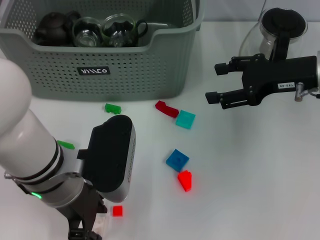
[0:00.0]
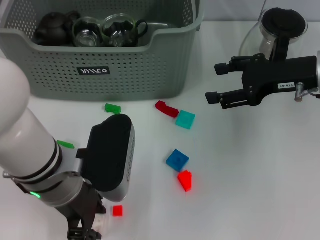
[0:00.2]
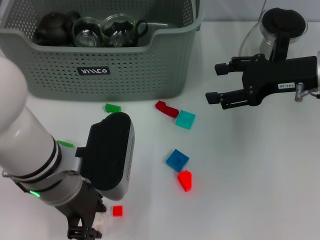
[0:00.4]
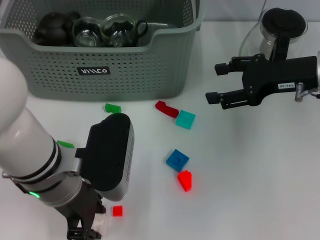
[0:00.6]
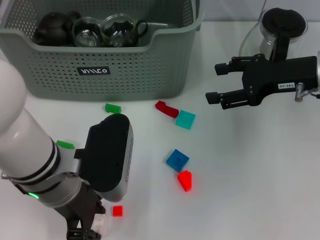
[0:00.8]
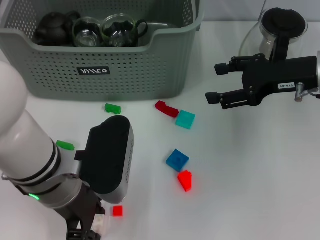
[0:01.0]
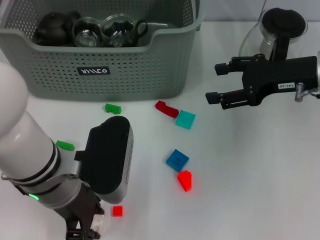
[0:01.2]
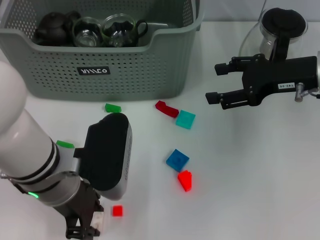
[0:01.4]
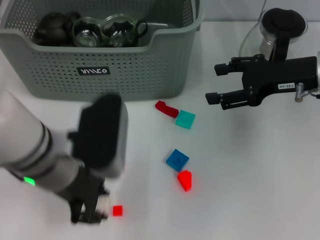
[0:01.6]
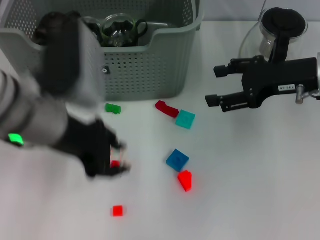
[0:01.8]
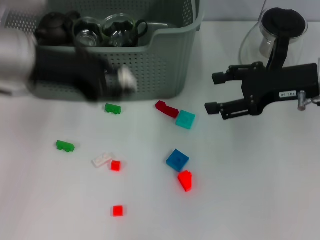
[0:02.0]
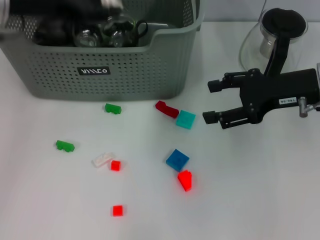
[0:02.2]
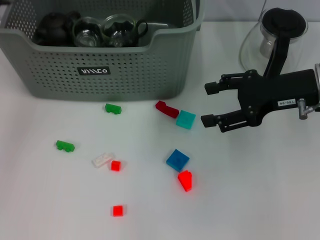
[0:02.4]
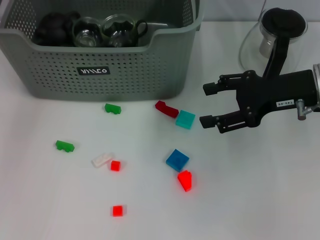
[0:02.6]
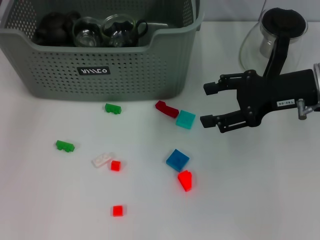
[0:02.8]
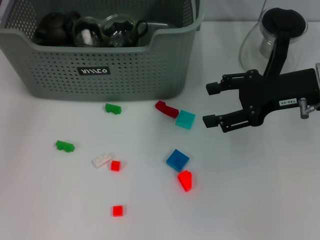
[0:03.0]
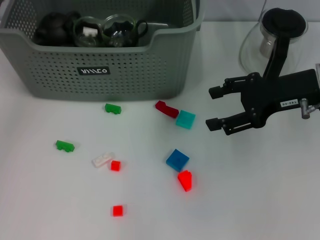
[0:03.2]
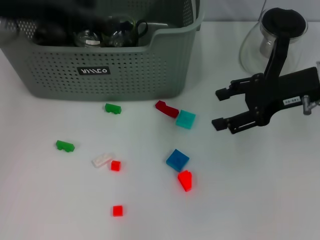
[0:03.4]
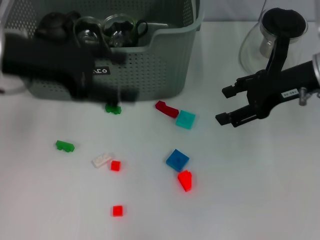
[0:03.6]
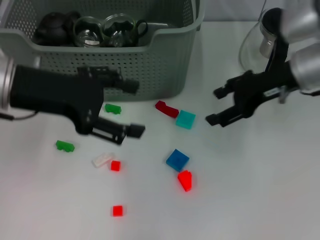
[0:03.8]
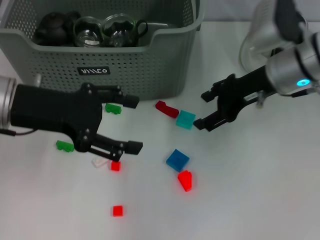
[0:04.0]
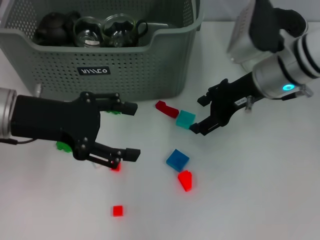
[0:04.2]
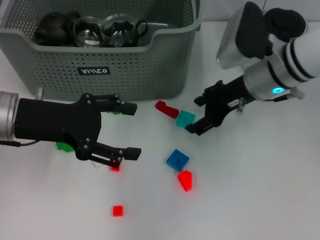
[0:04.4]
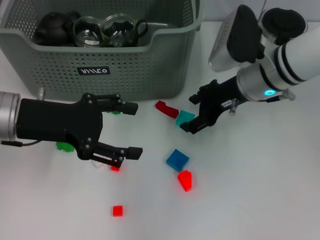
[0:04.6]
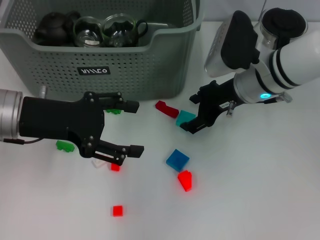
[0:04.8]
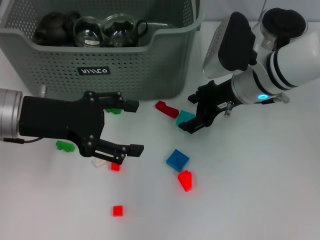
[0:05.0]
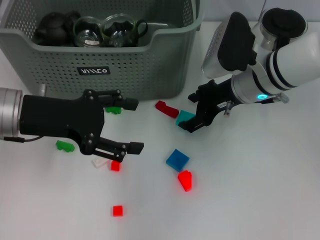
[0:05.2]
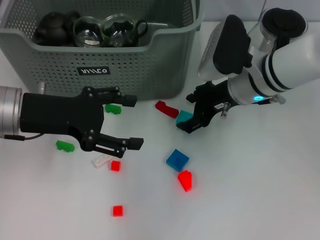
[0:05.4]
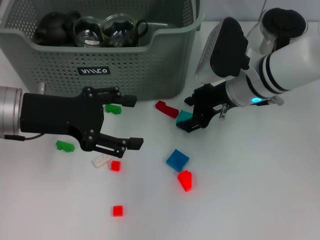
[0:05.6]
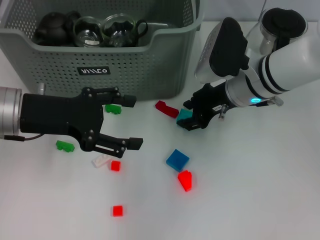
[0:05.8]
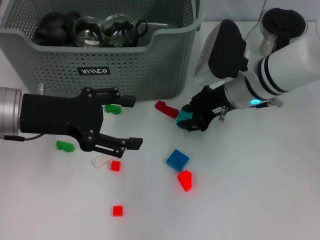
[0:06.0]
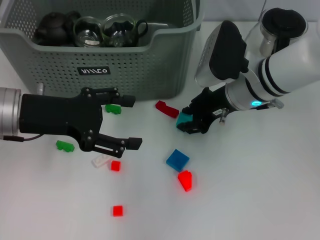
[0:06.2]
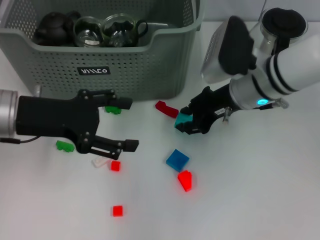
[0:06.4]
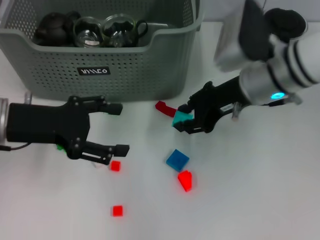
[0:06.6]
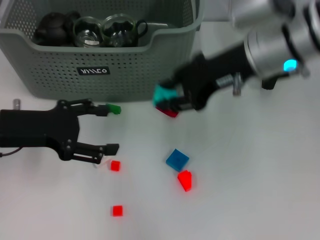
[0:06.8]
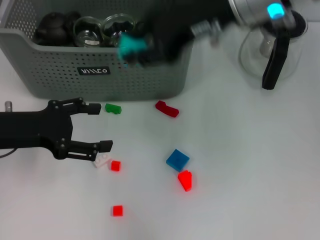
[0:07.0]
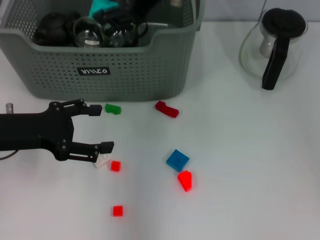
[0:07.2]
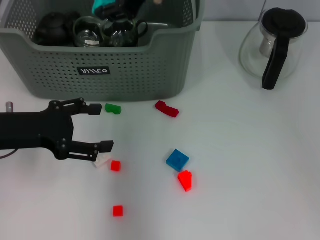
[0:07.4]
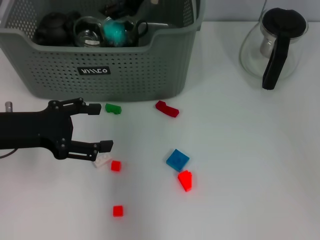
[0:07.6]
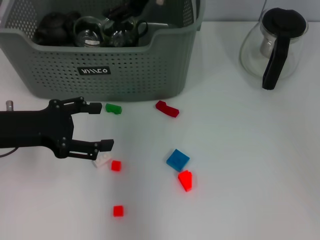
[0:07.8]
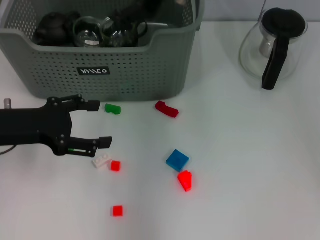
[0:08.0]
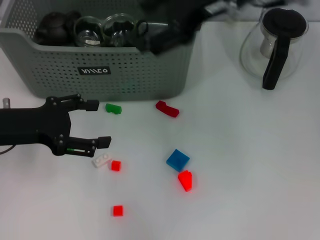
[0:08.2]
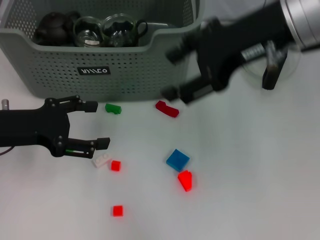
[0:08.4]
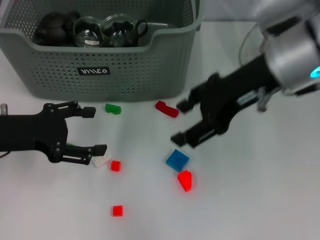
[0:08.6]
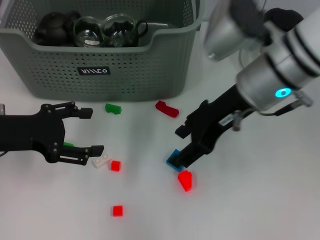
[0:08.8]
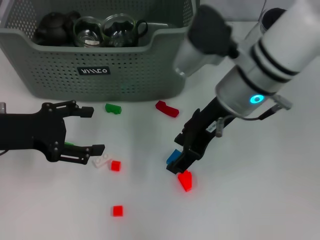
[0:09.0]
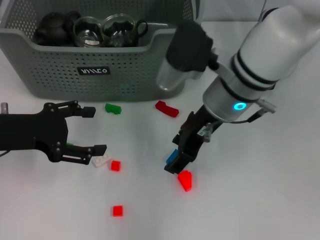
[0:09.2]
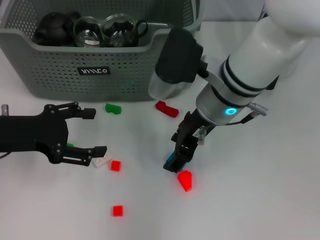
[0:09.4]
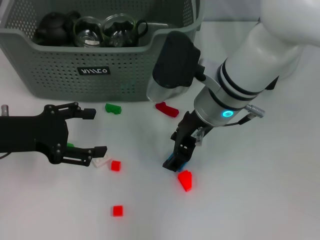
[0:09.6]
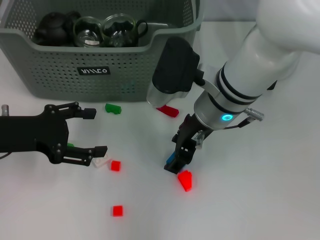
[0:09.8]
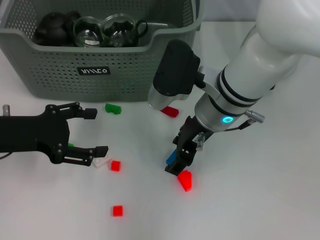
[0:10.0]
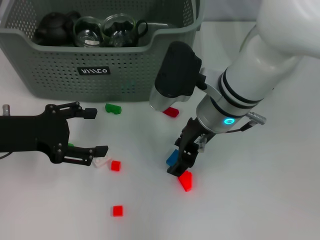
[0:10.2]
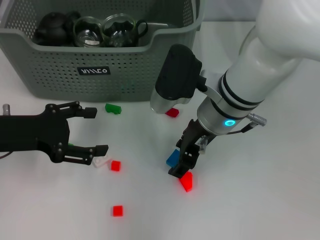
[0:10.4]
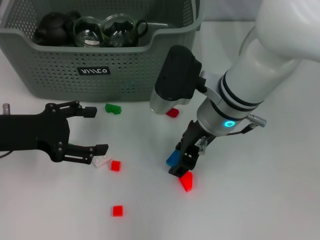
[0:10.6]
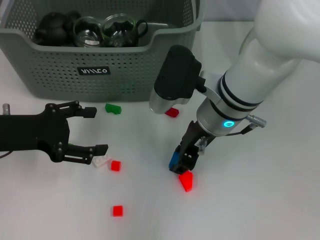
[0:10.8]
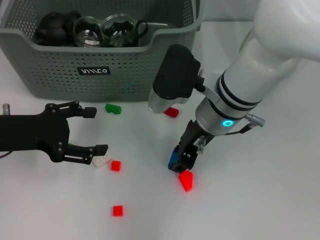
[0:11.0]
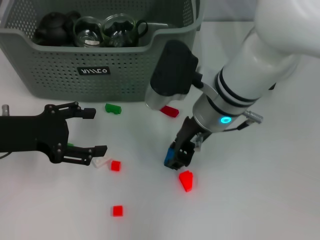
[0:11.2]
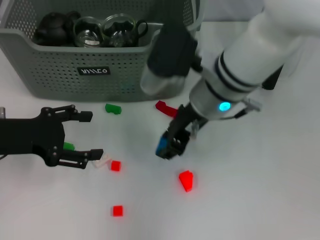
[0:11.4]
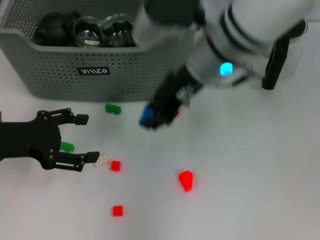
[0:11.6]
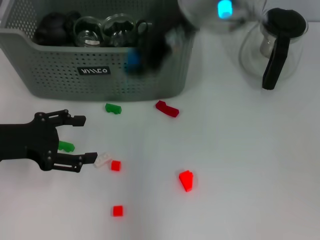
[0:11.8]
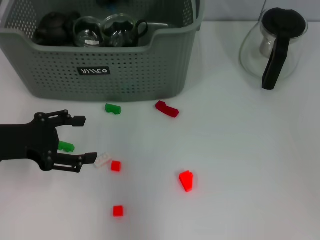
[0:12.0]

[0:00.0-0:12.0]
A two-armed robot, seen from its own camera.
Task of the whole recording: pick up the teacup on the table and place it into the storage bin, pick up the block on the table and place it into the storage bin.
Step, 0:00.6 to 0:06.2: Place the white block in the storage box with left gripper.
Step, 0:06.4 to 0:07.8: Place the light blue block in the storage box with right gripper.
0:00.0 to 0:01.6: The grippers make only small movements.
0:01.6 to 0:03.0: The left gripper shifts some 25 cm forward, to the left and upward.
0:03.0 to 0:04.4: The left gripper heads backward and downward, covering roughly 20 cm, and opens its fingers. Meanwhile the right gripper is displaced to the left by some 10 cm.
0:04.4 to 0:06.0: The grippers move only a little.
0:06.0 to 0:07.6: The right gripper is displaced upward and to the left by approximately 20 cm. Meanwhile the left gripper ends up approximately 5 cm from where it was.
0:07.6 to 0:09.0: The right gripper shifts some 15 cm backward, downward and to the right.
0:09.0 to 0:10.4: The right gripper changes place by some 5 cm.
0:10.4 to 0:12.0: The right gripper moves upward, about 20 cm, and closes.

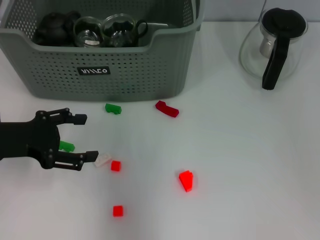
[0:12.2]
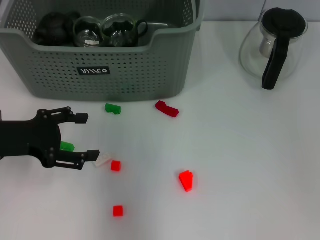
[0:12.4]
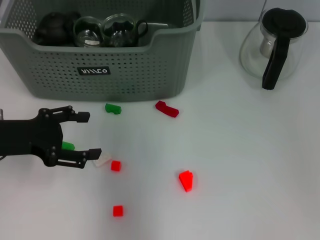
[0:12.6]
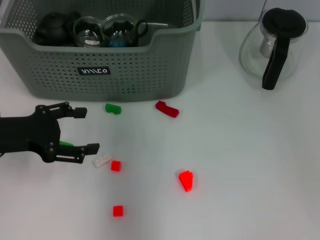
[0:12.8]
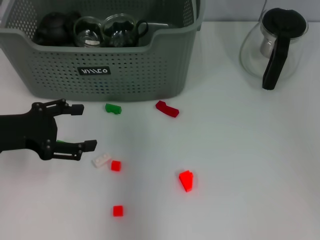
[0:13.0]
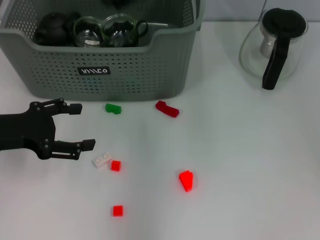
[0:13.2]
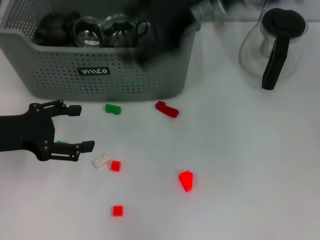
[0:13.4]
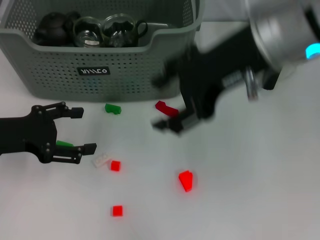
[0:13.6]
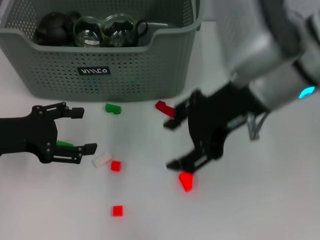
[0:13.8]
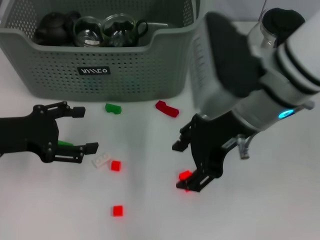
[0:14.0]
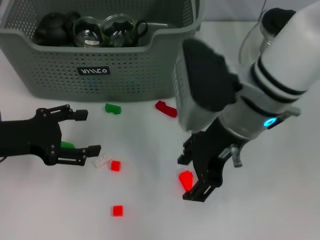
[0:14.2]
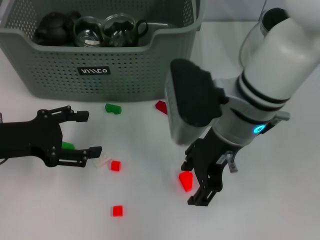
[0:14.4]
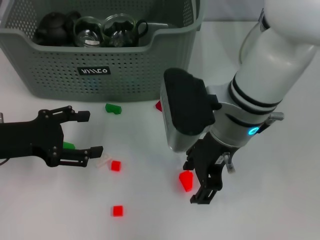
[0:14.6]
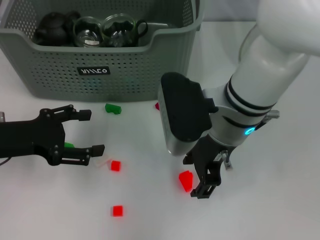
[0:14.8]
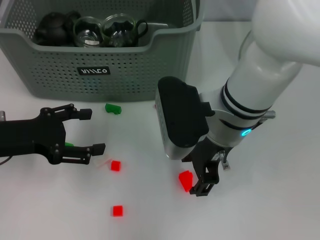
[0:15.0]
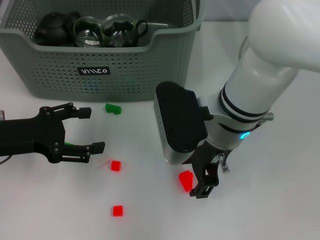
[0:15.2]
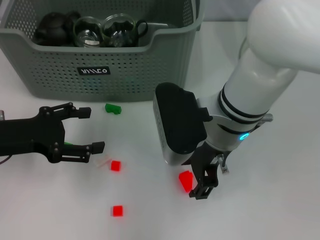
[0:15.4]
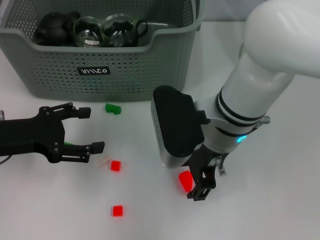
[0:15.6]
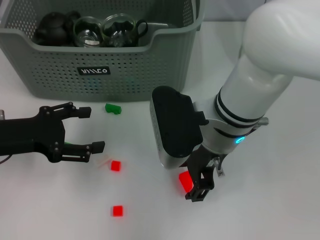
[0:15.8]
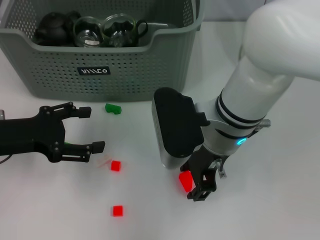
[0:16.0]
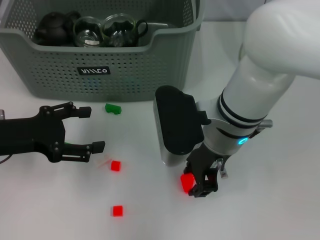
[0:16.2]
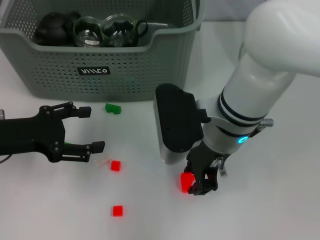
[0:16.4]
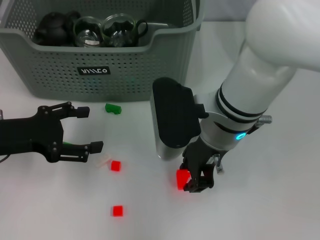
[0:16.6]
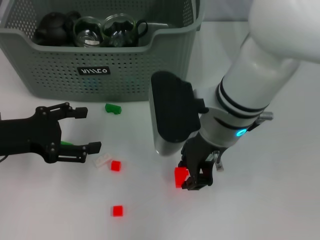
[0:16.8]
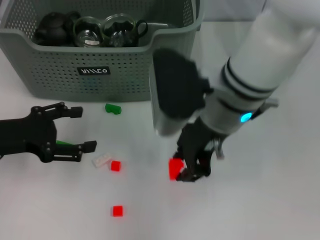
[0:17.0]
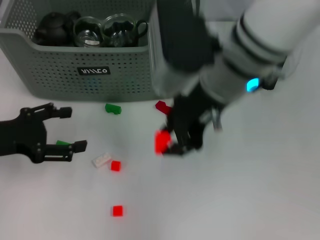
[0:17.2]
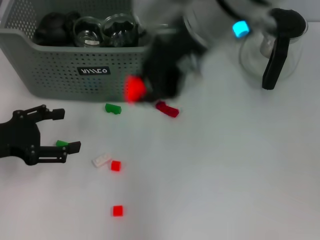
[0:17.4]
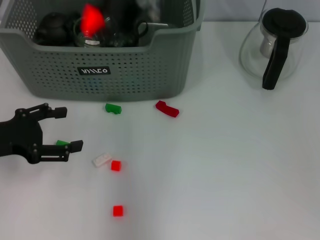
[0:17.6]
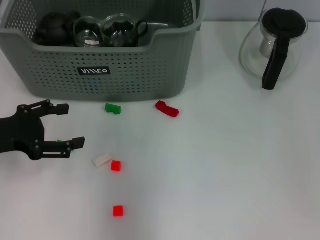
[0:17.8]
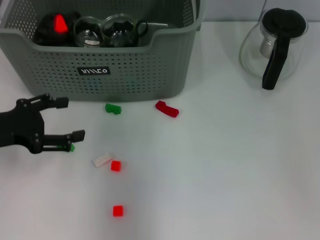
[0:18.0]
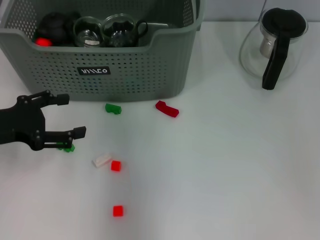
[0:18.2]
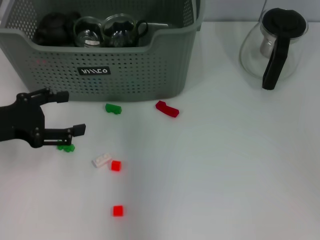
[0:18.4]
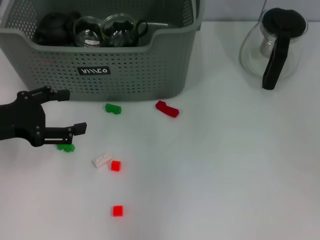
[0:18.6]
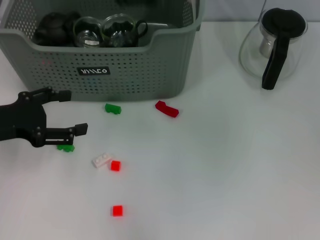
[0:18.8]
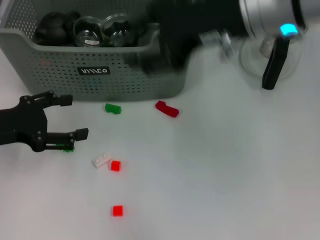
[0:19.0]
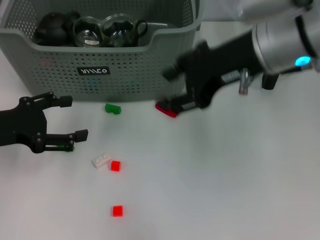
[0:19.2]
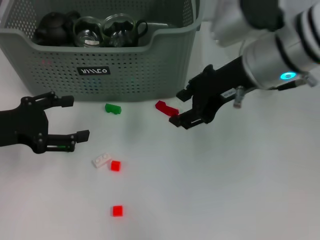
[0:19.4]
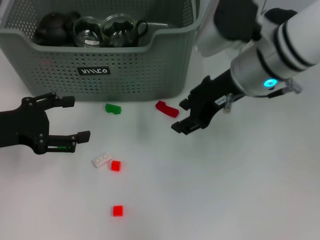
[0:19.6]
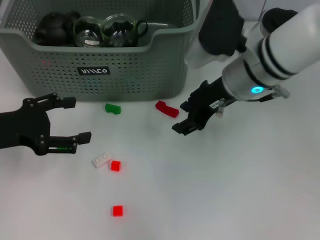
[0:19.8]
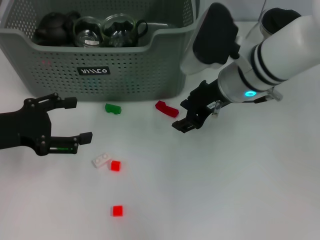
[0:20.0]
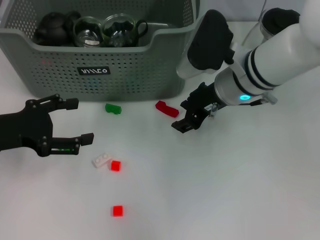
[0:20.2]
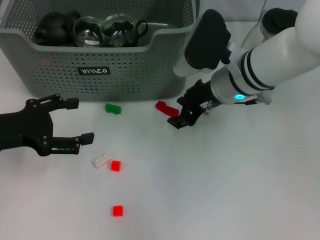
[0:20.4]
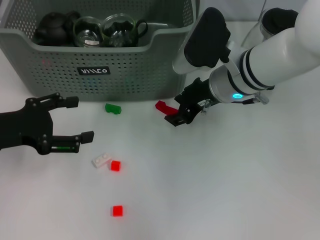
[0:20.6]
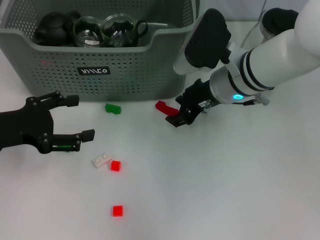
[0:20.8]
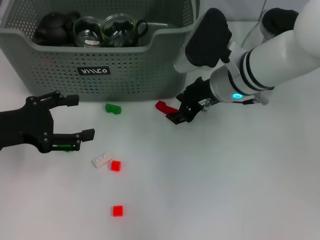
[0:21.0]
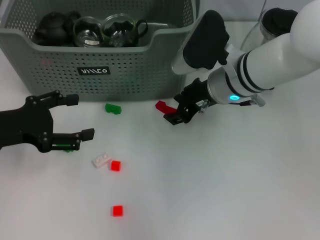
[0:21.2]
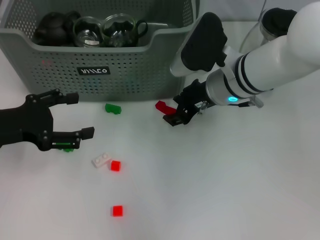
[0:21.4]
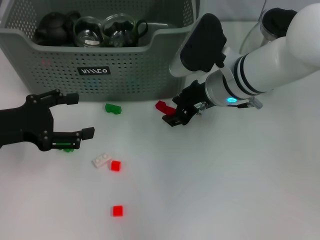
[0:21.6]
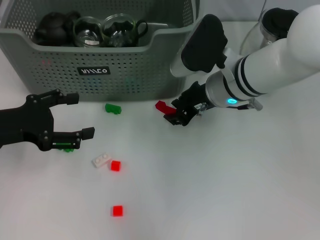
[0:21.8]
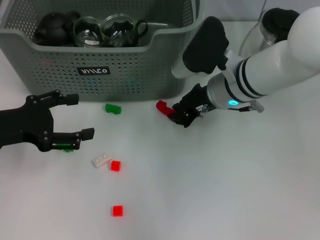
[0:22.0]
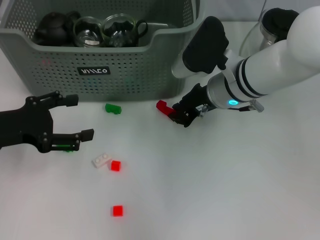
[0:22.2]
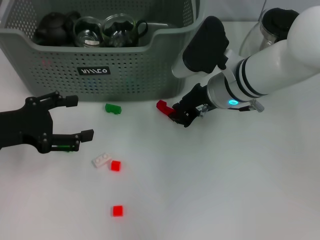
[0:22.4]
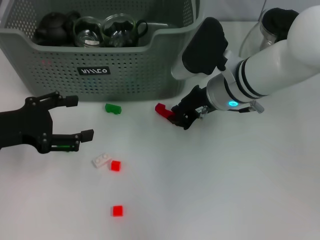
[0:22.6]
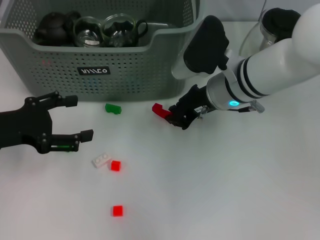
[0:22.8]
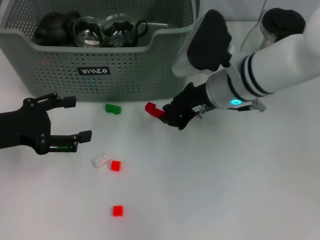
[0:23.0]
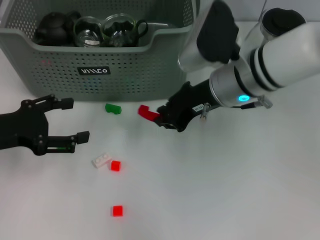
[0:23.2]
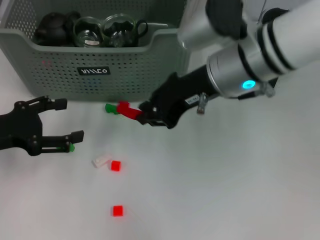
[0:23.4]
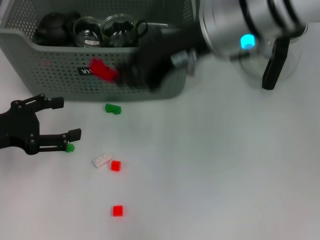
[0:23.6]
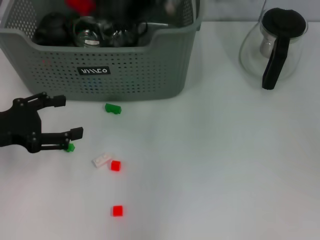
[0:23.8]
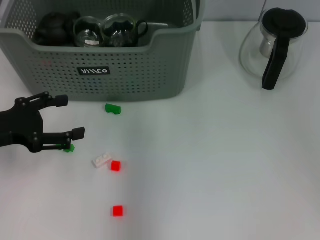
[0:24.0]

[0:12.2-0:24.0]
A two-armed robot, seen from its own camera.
Task of the whole recording: pick up the teacup on the table and place it into the storage bin, pick up the block on the table and place it into the storage bin.
Step, 0:13.2 to 0:16.2: Grasp the orange block with right gripper.
Step, 0:16.4 to 0:18.4: Place the orange block in the storage box with right gripper.
Step, 0:18.6 to 0:22.4: Grasp the red block with right gripper.
0:12.2 to 0:13.6: The right gripper moves backward, to the right and downward, about 15 cm, and opens its fingers.
0:13.6 to 0:15.2: The right gripper heads downward, covering approximately 15 cm.
0:15.2 to 0:16.6: The right gripper closes.
0:16.6 to 0:18.2: The right gripper goes some 20 cm forward and upward.
0:18.2 to 0:19.6: The right gripper is displaced to the right, backward and downward by roughly 15 cm, and opens up.
0:19.6 to 0:21.0: The right gripper is displaced downward by about 5 cm.
0:21.0 to 0:22.6: The right gripper closes up.
0:22.6 to 0:24.0: The right gripper heads upward, covering about 20 cm.
